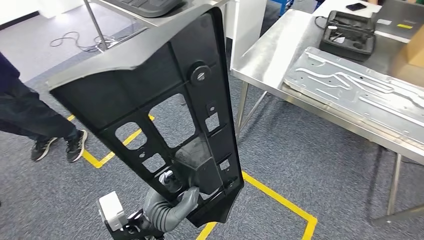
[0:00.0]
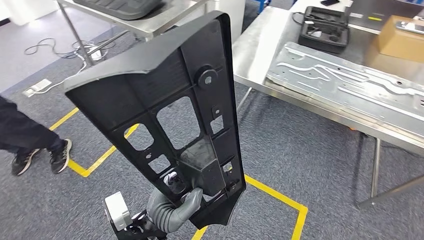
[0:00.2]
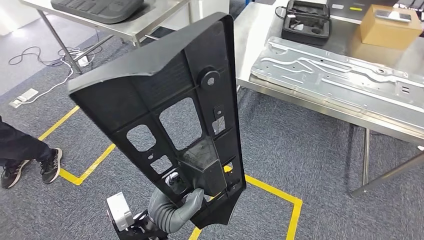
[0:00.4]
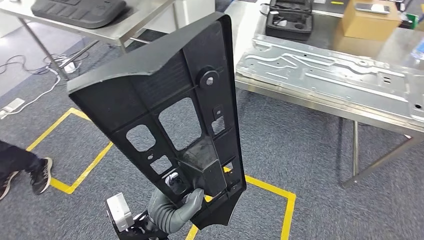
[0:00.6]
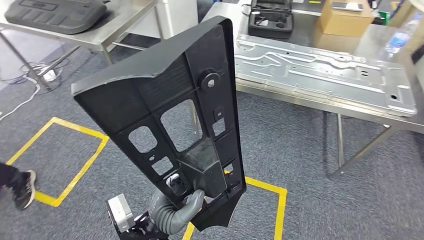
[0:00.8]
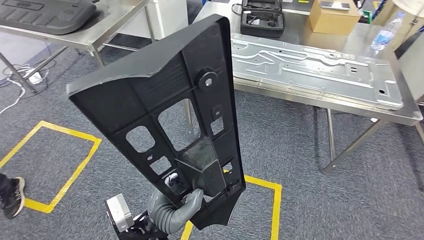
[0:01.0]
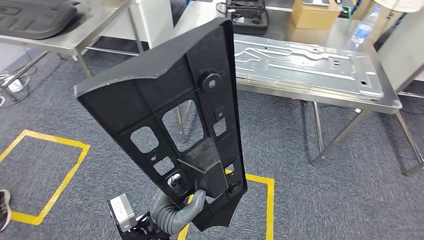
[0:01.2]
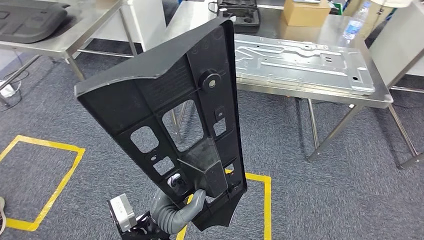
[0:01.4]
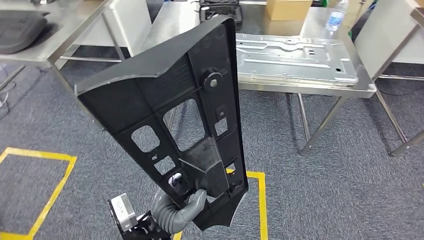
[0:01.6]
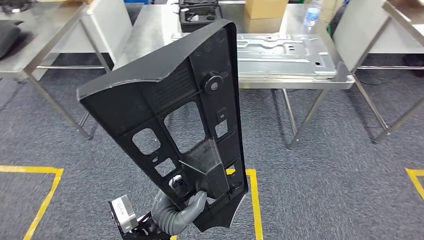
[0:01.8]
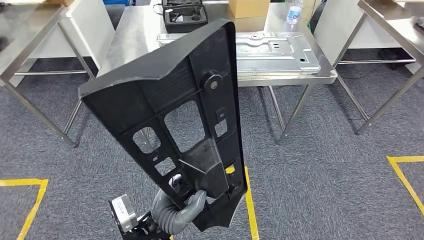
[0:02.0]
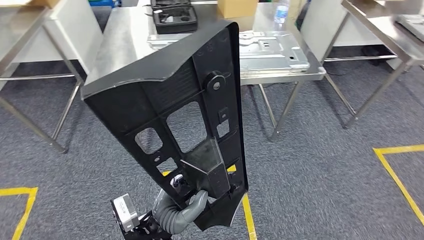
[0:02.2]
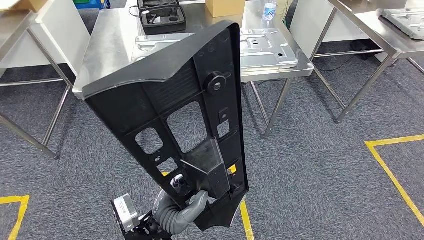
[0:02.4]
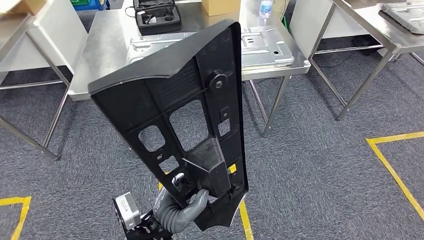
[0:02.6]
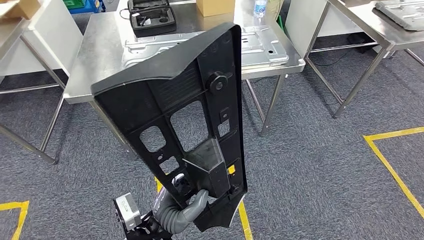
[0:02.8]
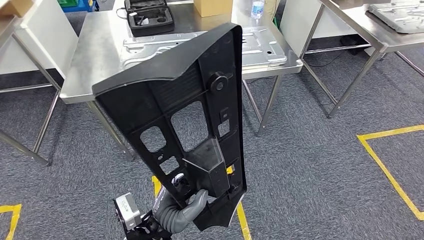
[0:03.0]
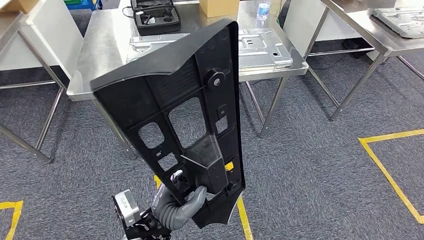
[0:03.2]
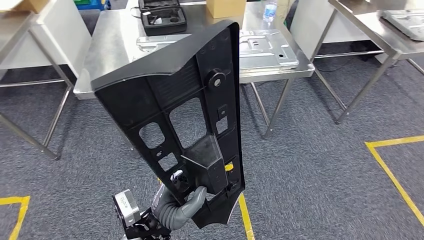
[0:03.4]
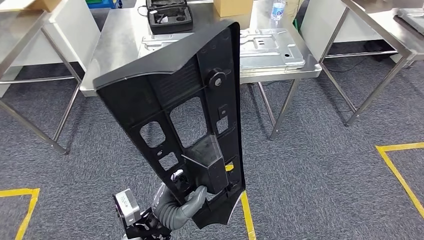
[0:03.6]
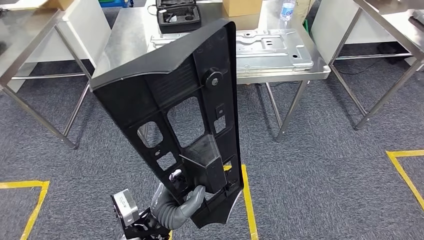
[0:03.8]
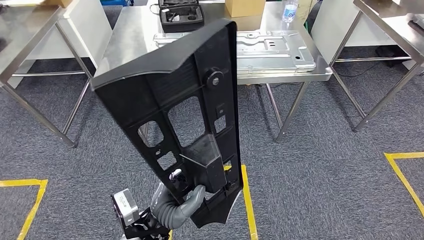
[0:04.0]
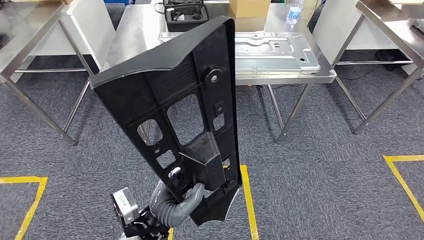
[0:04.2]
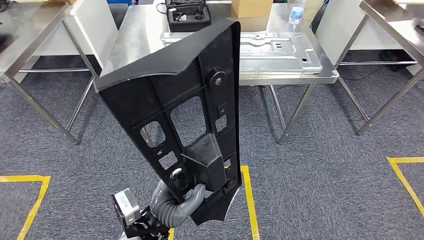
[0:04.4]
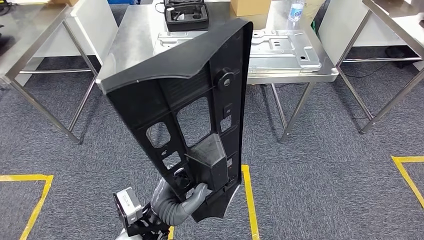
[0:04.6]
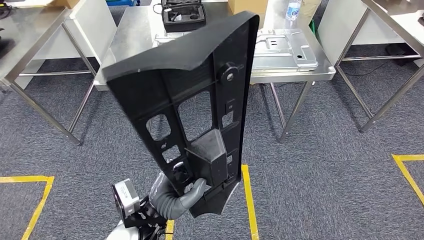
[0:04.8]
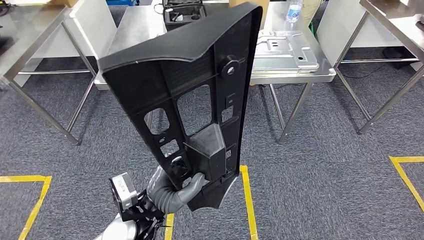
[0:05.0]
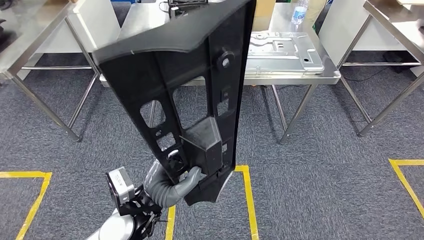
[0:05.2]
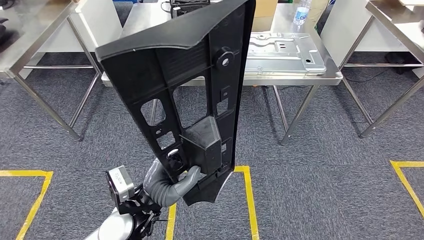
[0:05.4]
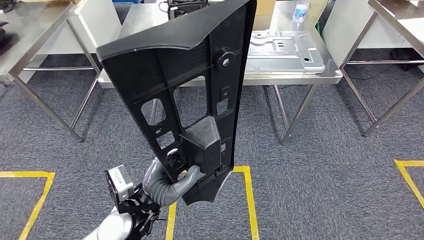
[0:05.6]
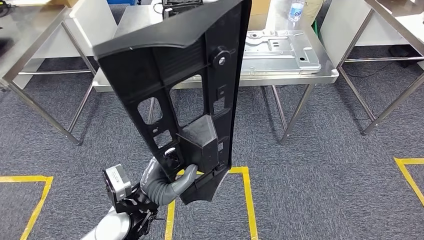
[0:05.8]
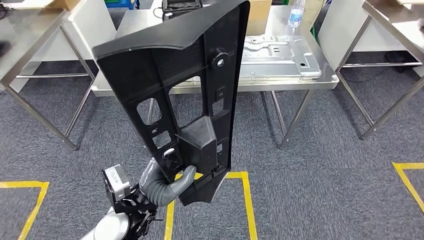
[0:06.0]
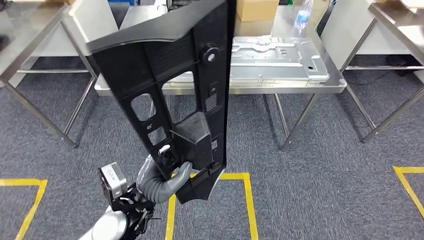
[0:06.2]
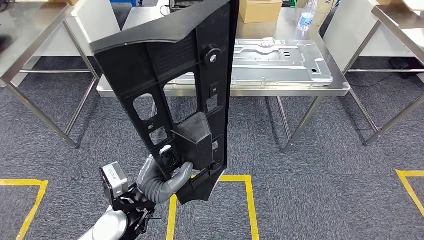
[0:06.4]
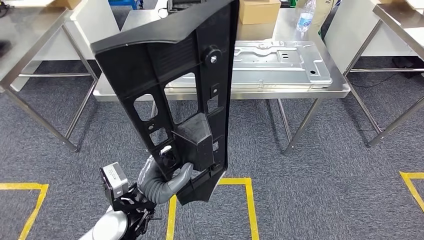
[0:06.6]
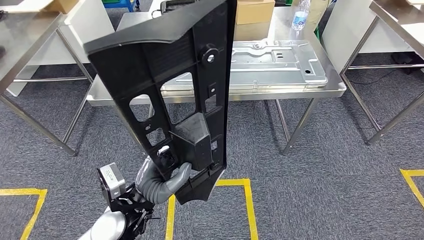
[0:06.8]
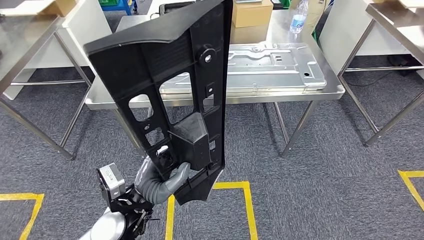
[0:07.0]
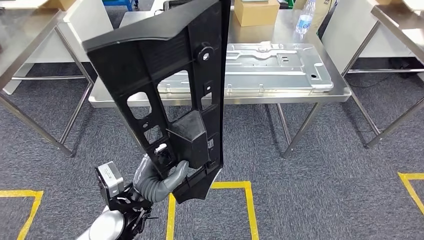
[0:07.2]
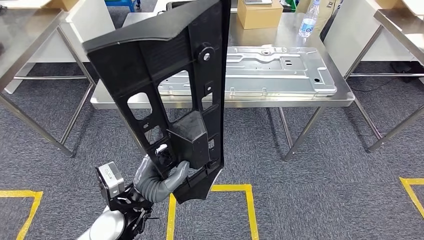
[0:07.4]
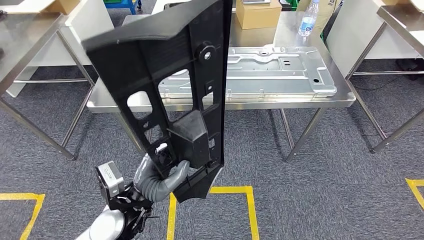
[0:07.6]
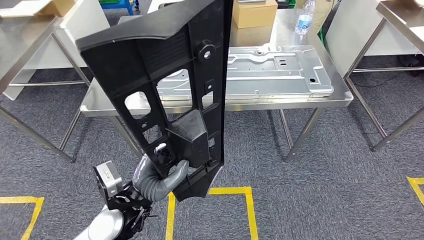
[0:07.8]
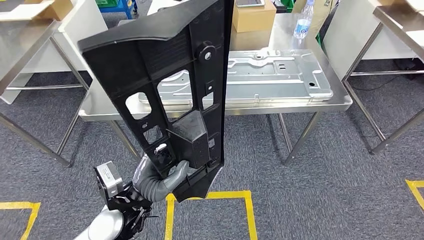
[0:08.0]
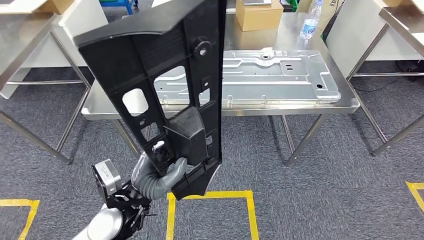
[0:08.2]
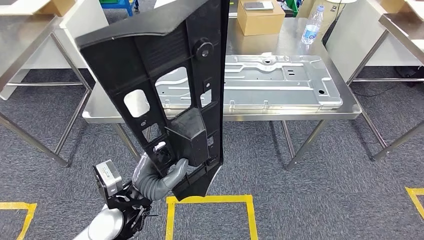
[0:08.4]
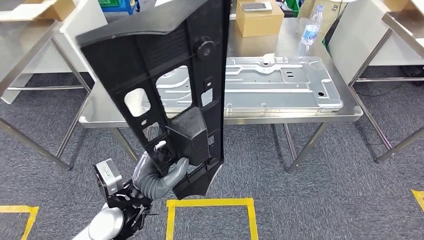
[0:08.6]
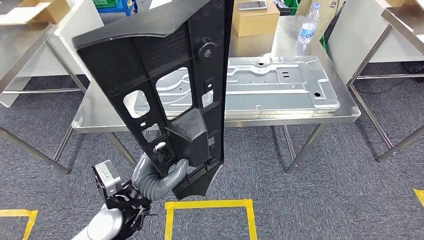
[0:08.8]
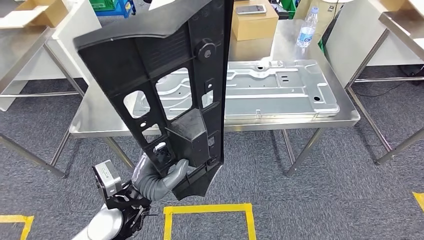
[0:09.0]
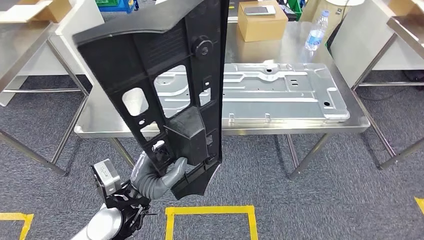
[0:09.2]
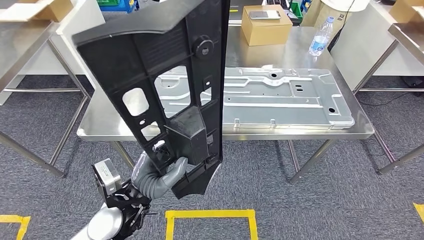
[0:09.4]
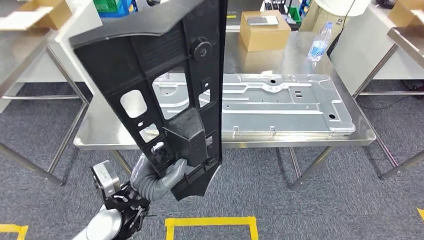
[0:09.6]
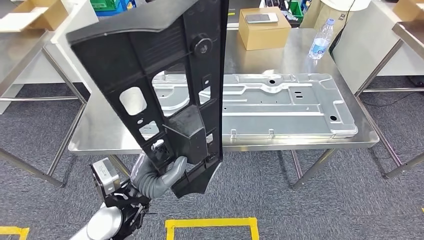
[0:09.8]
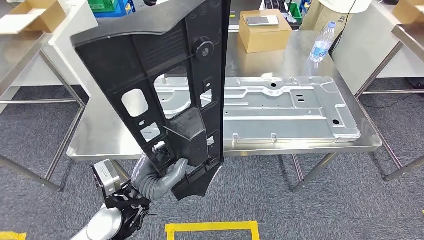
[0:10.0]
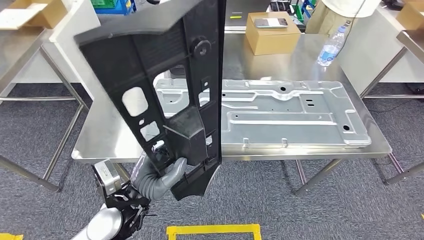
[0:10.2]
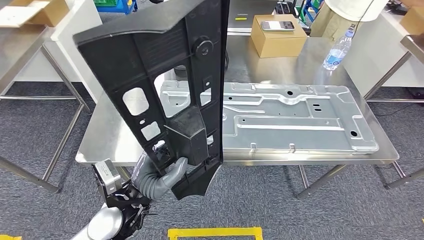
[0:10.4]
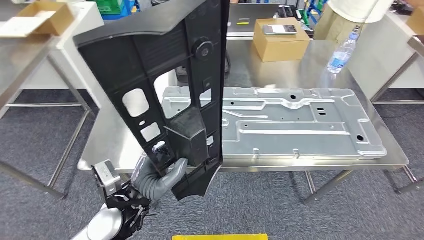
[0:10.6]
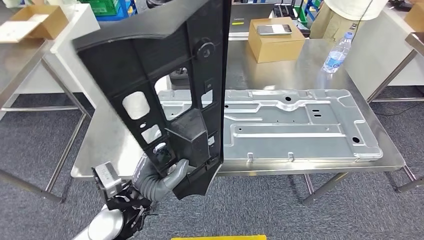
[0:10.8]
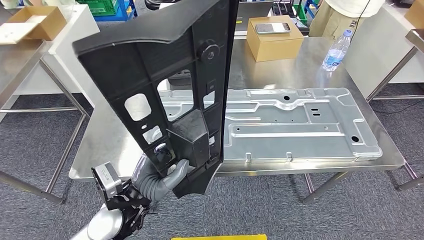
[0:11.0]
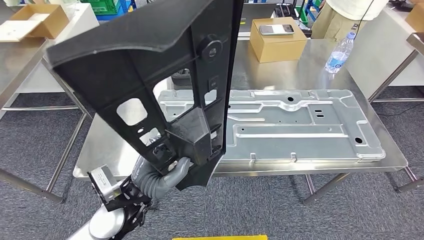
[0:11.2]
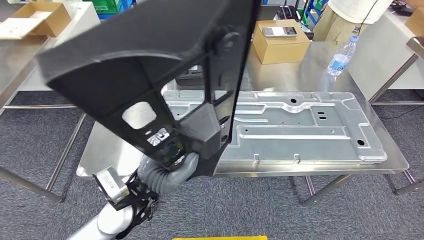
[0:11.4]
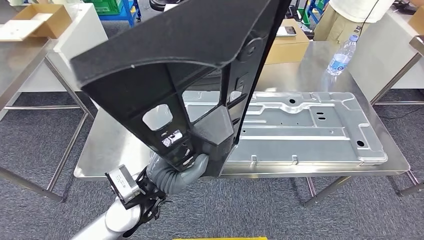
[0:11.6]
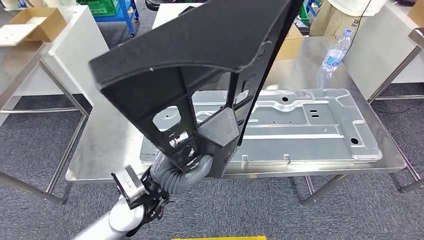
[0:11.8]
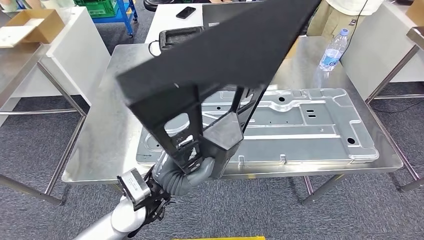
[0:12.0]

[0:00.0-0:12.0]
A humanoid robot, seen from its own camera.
Step, 0:00.0 to 0:10.8: Move the large material to the workbench.

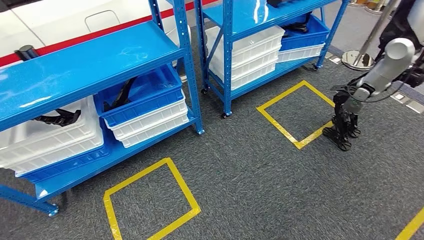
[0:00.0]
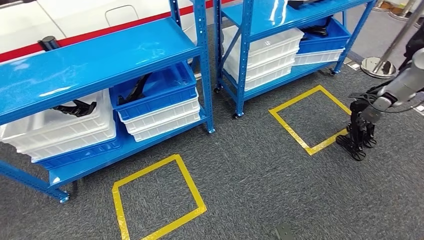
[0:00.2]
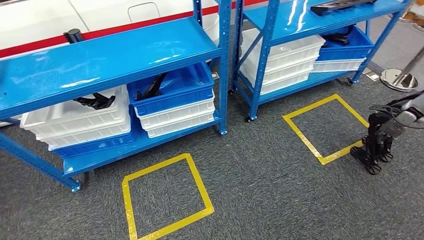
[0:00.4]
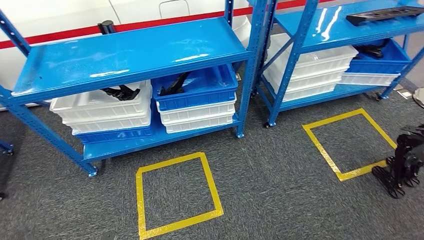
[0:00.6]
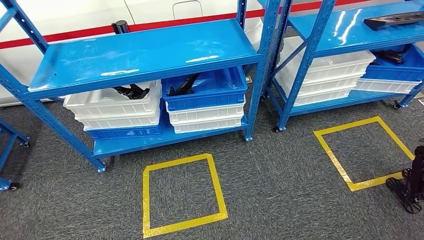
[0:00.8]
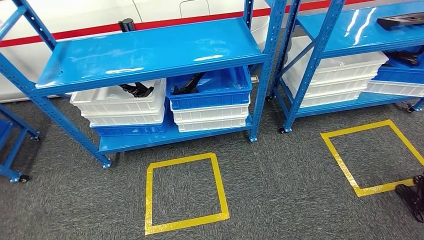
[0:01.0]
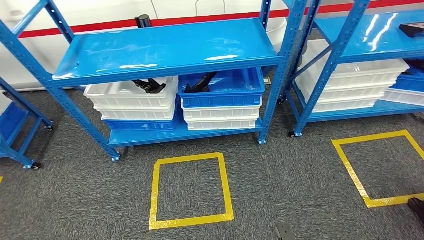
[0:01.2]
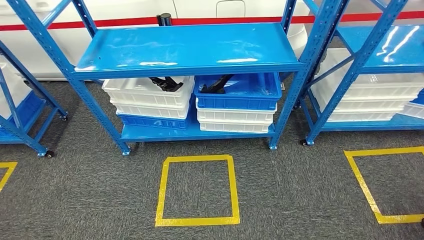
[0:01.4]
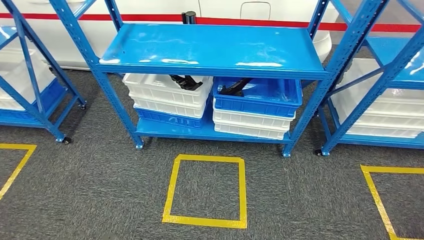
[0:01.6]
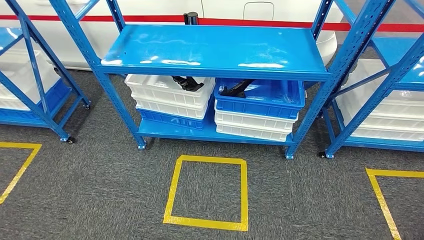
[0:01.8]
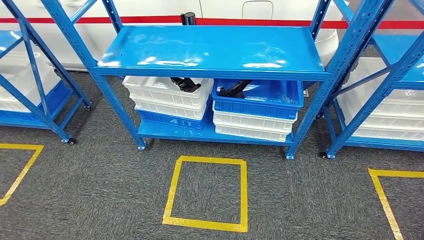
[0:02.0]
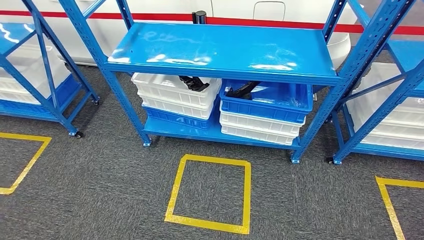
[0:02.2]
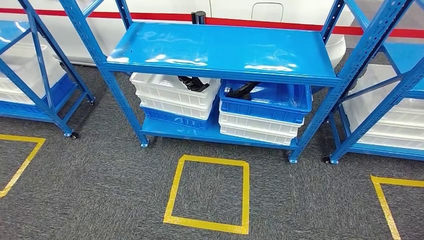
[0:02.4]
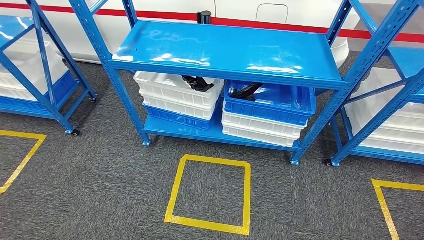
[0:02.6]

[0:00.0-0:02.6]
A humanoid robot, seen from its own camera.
Step, 0:00.0 to 0:02.6: Return to the initial position at the shelf.

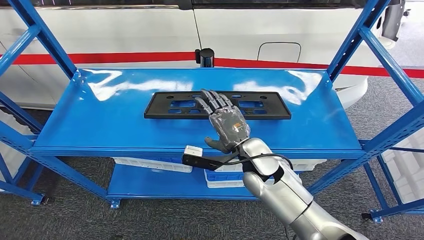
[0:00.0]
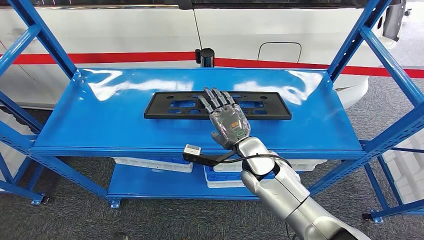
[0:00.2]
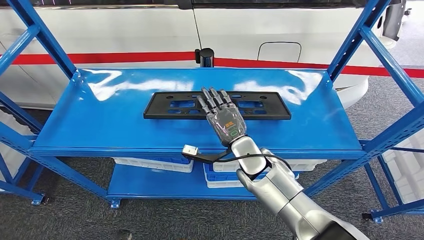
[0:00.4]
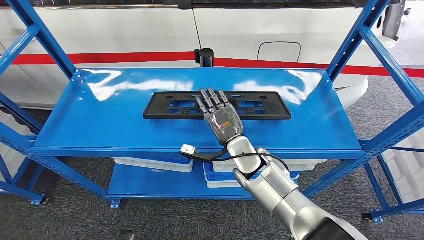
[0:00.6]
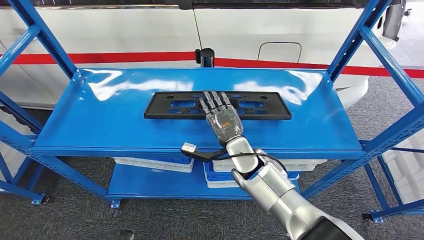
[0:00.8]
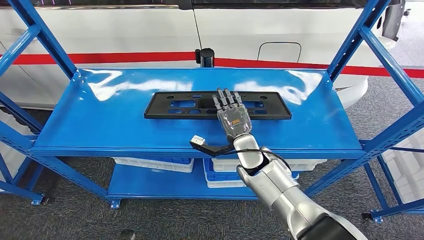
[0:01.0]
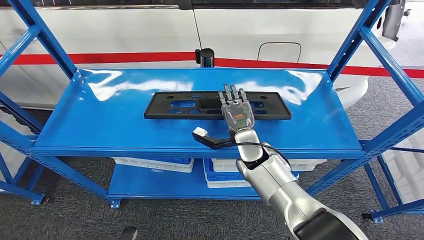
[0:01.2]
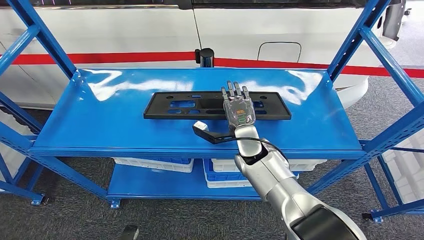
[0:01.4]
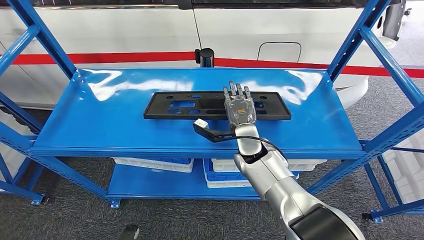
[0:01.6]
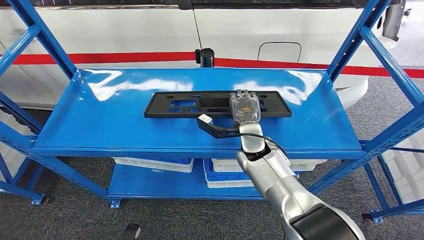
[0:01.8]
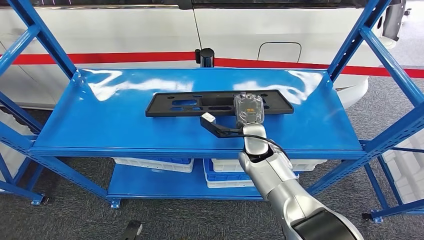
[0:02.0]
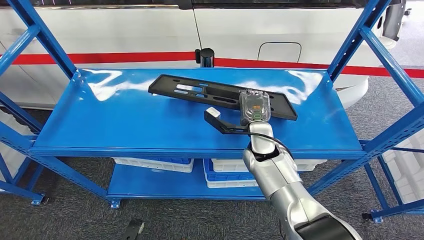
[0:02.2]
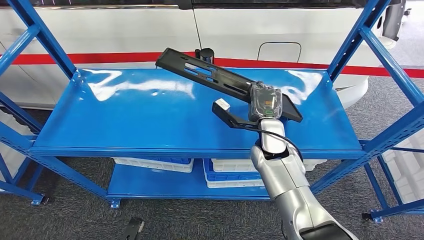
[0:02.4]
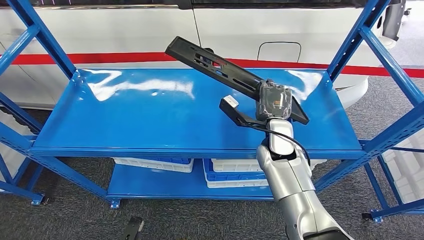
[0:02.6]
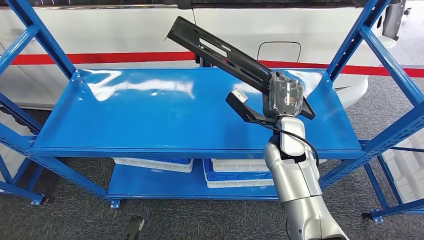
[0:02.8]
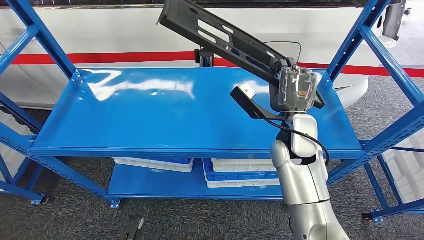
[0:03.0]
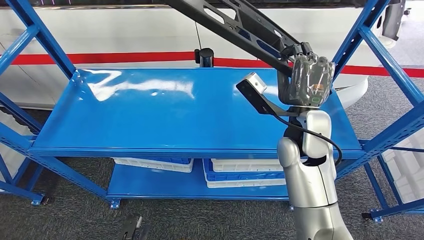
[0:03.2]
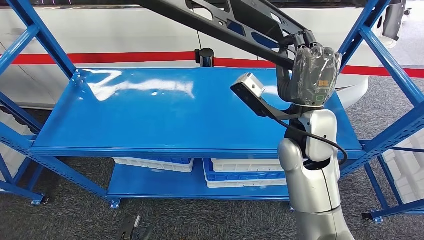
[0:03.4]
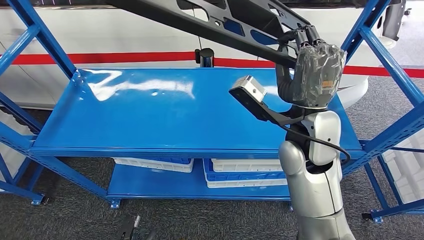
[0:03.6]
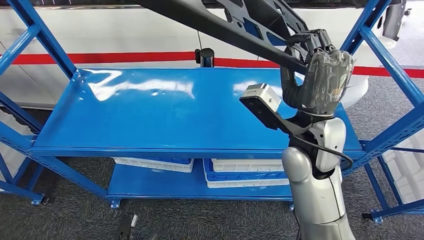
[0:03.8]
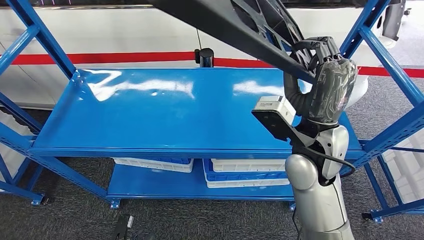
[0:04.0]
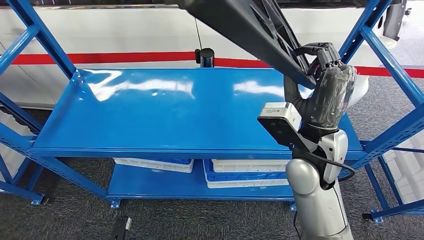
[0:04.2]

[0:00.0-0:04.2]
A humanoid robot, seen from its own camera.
0:00.0 to 0:01.4: The right hand is displaced forward by some 5 cm.
0:01.4 to 0:02.8: The right hand moves upward and to the right, roughly 10 cm.
